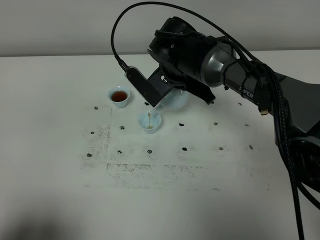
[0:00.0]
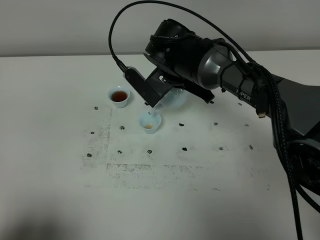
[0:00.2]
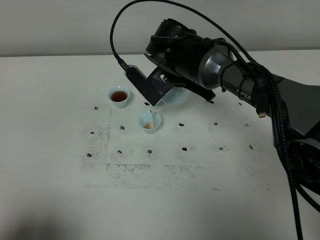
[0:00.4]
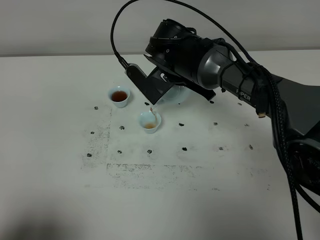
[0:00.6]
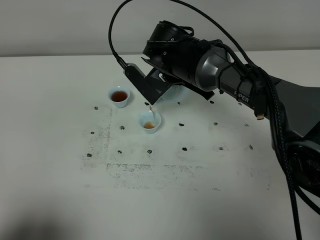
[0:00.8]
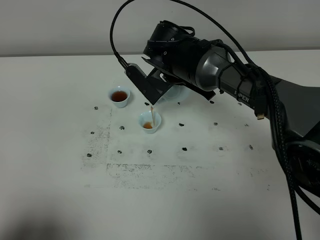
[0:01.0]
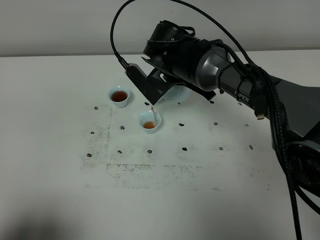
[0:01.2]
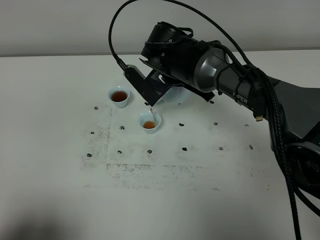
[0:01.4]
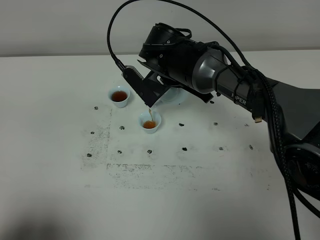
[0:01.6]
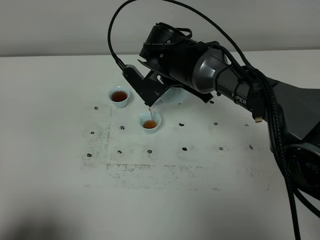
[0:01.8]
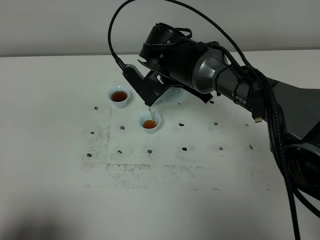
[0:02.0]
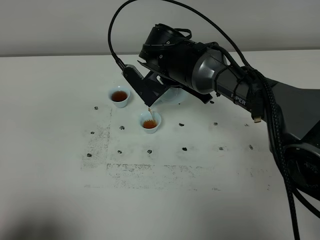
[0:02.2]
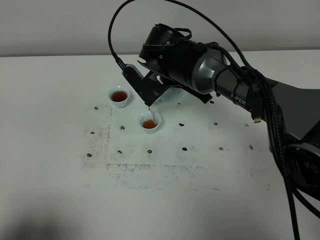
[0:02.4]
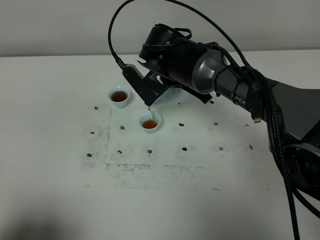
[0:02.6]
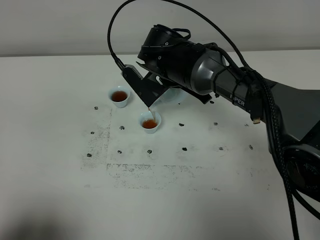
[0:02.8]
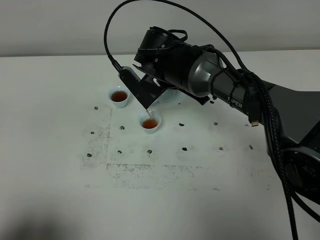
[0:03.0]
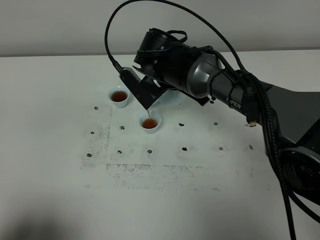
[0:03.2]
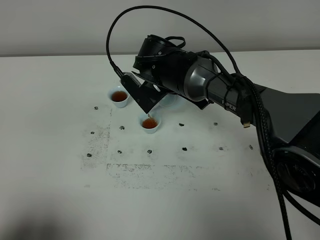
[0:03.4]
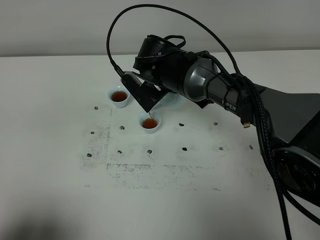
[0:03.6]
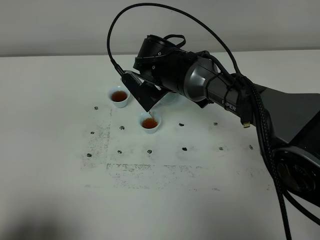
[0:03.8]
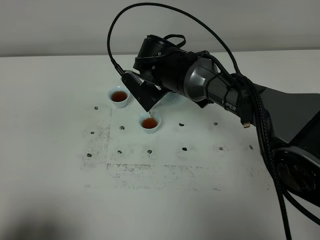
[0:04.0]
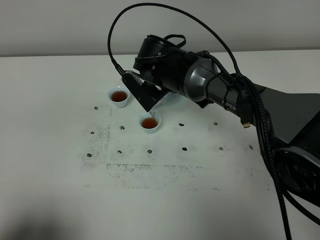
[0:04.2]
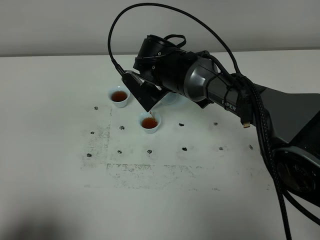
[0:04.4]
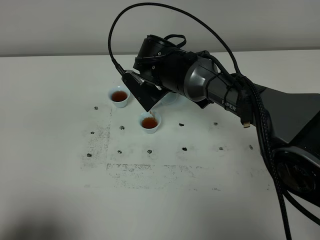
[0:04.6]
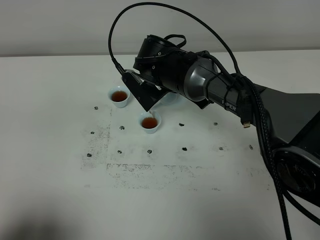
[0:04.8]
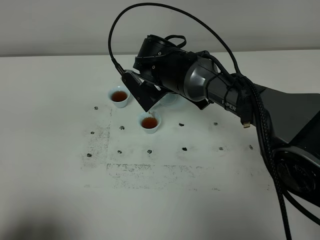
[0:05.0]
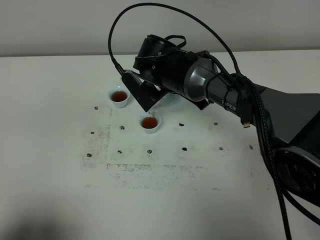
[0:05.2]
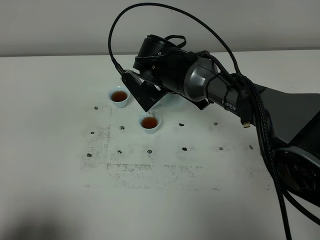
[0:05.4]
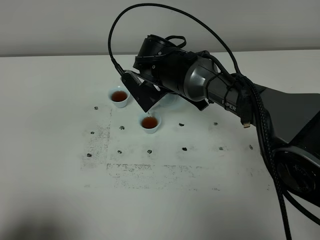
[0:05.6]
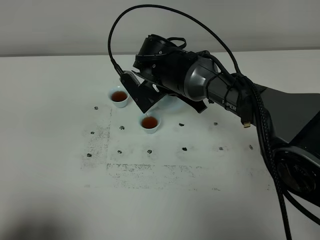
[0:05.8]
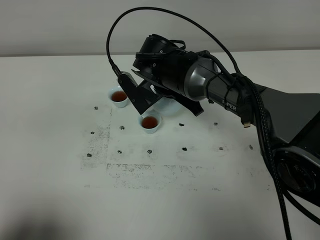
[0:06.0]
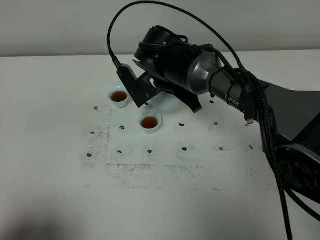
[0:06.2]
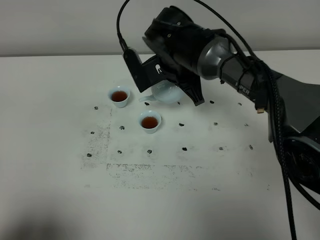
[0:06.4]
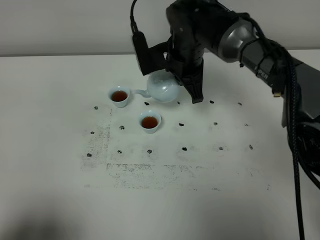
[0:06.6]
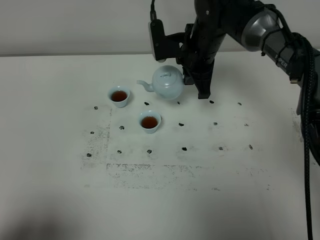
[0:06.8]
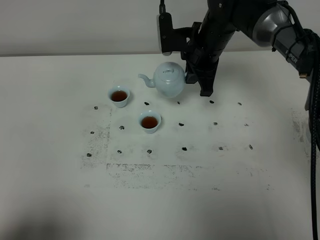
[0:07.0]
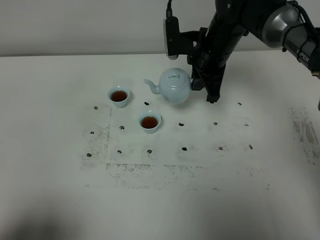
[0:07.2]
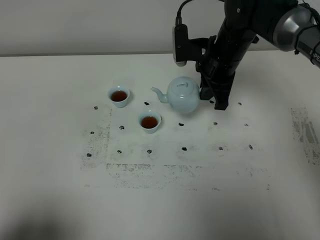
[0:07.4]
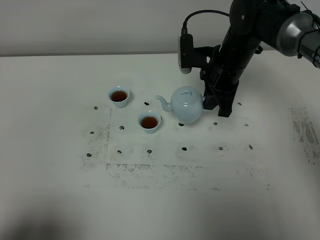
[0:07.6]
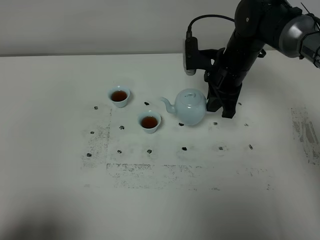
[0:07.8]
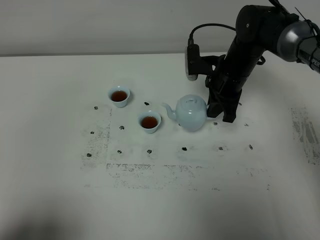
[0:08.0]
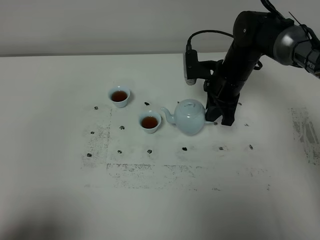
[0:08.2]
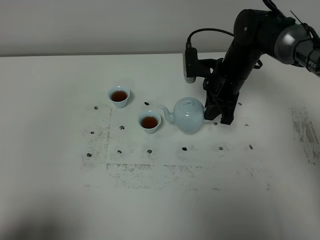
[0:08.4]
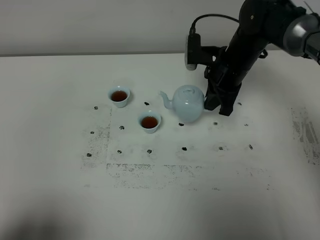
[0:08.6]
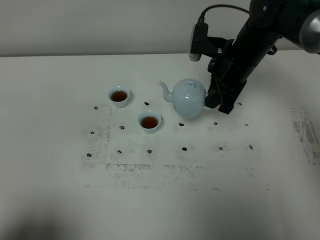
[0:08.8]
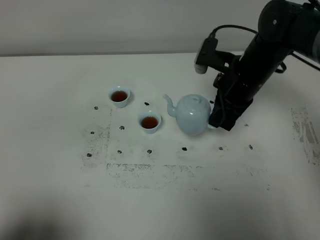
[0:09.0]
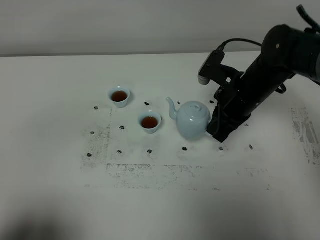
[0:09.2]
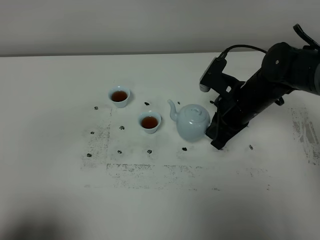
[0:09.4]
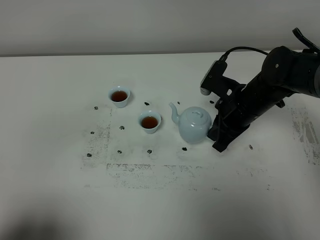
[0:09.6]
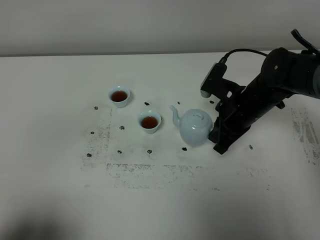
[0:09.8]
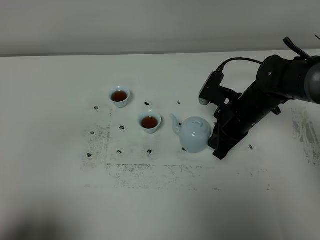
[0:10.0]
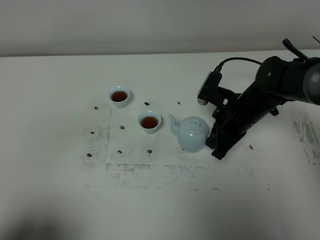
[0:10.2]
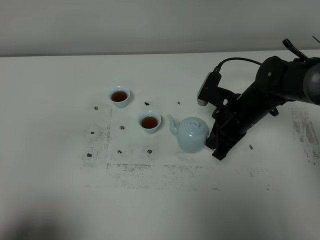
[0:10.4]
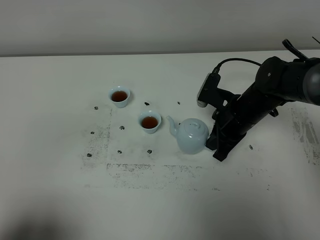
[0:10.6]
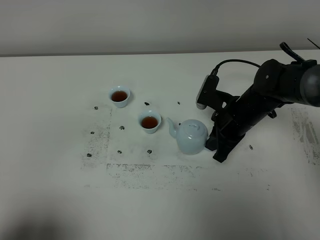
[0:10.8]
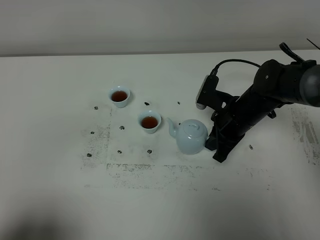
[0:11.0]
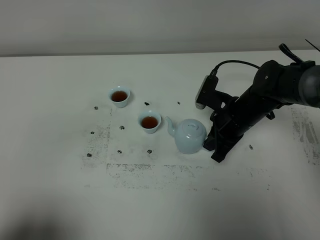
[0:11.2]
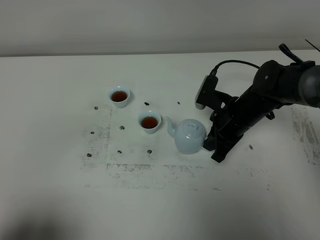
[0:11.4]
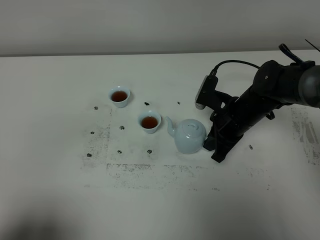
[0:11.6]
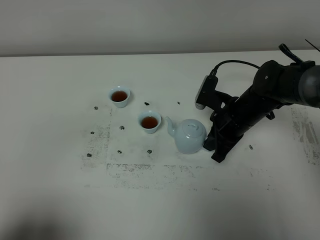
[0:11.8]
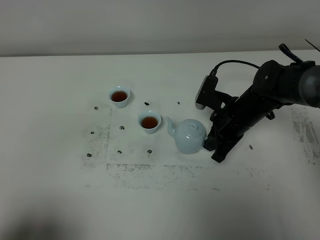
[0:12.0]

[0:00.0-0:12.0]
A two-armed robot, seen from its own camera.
Task of the whole recording: grasp the blue porcelain teapot and pour the tea into the two blue porcelain teacups one by one, put the blue porcelain teapot back in its original place.
Step, 0:00.0 to 0:06.2: Pour tea into the teacup with the right gripper.
0:00.0 to 0:01.6: The grippers stay close to where they were, moving slightly.
0:01.6 to 0:03.0: The two grippers keep their place.
0:03.0 to 0:06.0: The grippers stay close to where they were, moving slightly.
0:06.0 to 0:07.6: The right gripper heads to the right, covering about 10 cm.
0:07.6 to 0:09.0: The right gripper moves backward, about 5 cm.
0:09.0 to 0:10.4: The right gripper goes about 10 cm downward.
0:10.4 to 0:12.0: The two grippers keep their place.

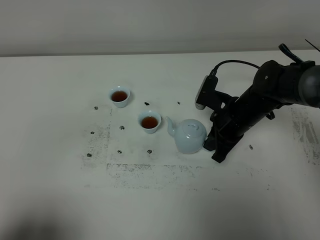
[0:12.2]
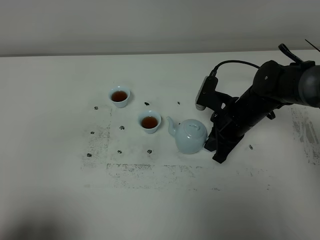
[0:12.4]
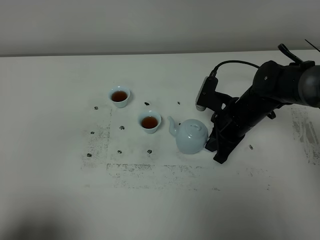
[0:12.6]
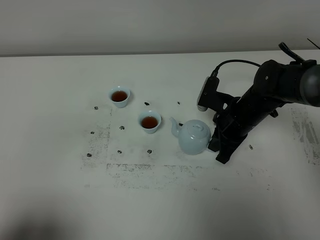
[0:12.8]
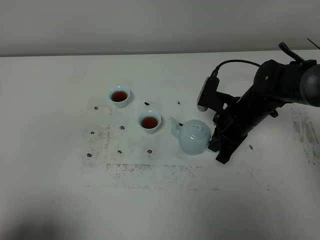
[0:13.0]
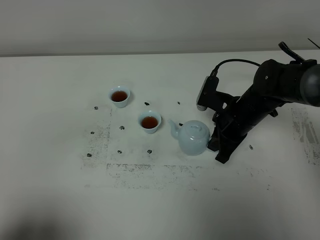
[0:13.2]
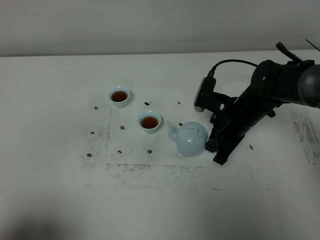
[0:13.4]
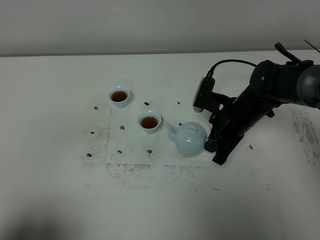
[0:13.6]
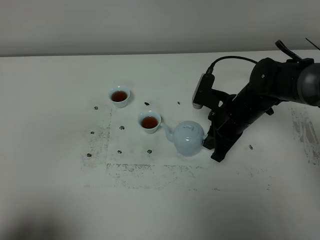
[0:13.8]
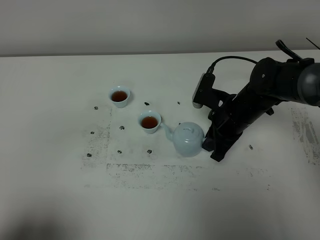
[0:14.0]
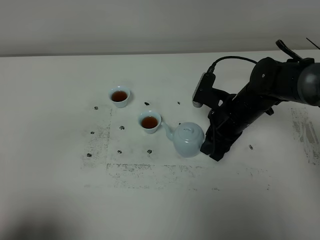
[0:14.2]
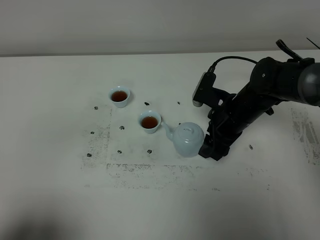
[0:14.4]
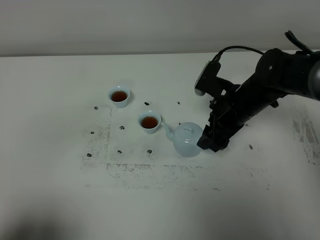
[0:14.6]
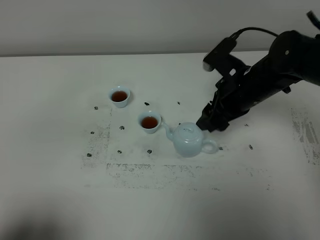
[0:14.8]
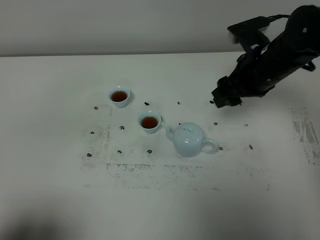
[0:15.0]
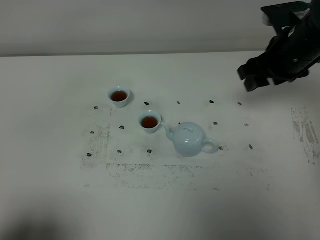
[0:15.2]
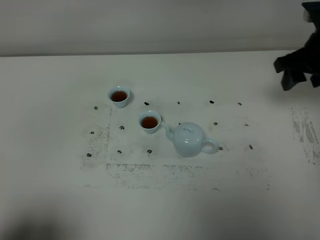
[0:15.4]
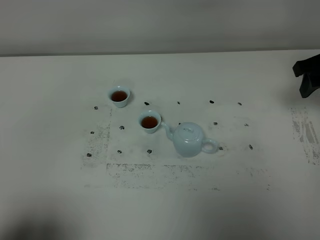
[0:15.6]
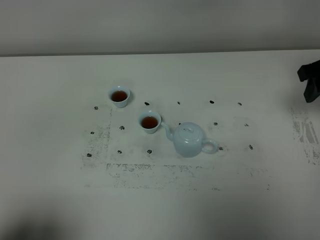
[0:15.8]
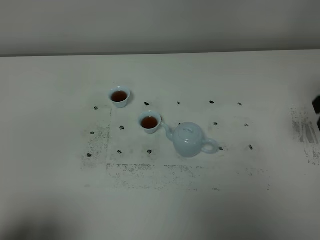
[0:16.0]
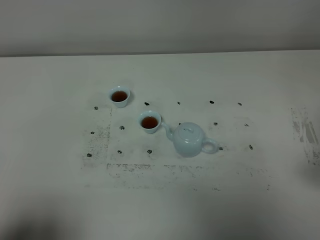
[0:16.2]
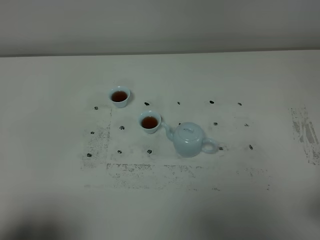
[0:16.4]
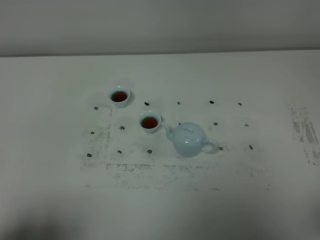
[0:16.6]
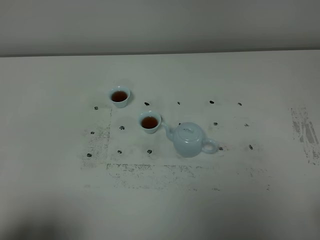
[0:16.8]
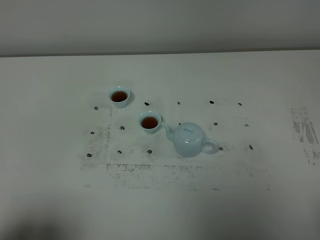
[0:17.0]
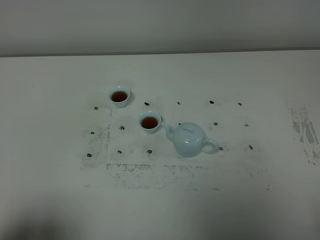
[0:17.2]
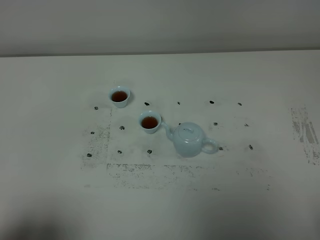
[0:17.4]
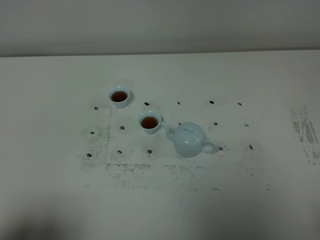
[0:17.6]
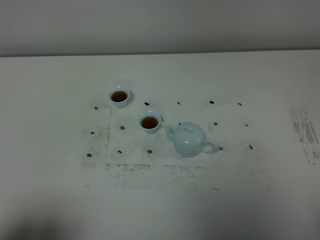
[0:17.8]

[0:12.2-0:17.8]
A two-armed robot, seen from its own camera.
Task of the whole recording: grasp the blue porcelain teapot and pour the tea into the two blue porcelain teacups one by one, put the blue porcelain teapot back in its original place.
0:12.2 to 0:13.6: Neither gripper changes place.
0:13.6 to 0:15.0: The right gripper is displaced upward by roughly 10 cm, and opens its fingers.
0:15.0 to 0:16.4: The right gripper shifts approximately 30 cm backward and to the right.

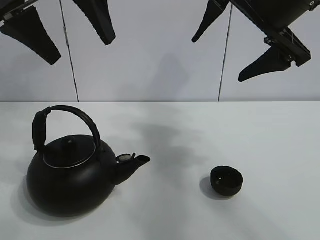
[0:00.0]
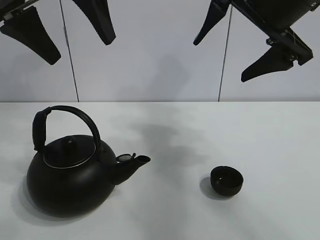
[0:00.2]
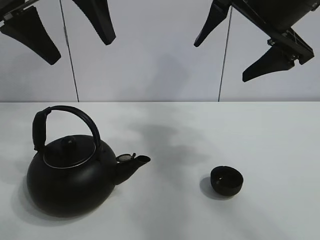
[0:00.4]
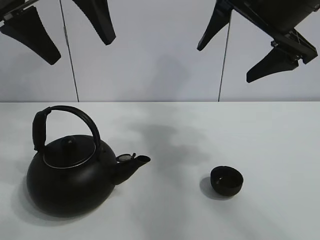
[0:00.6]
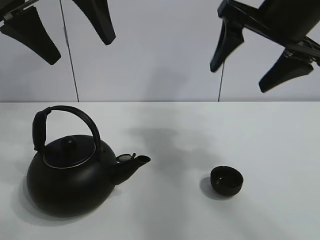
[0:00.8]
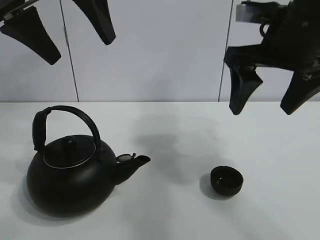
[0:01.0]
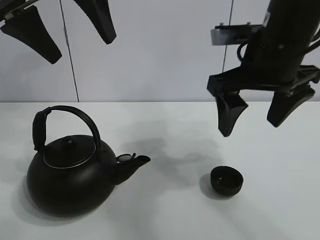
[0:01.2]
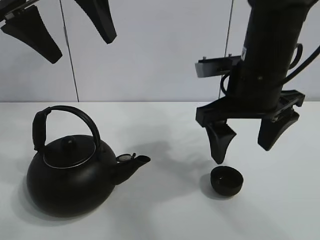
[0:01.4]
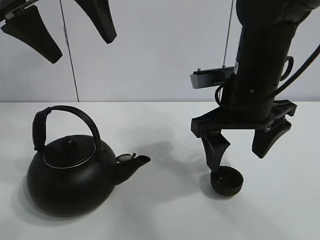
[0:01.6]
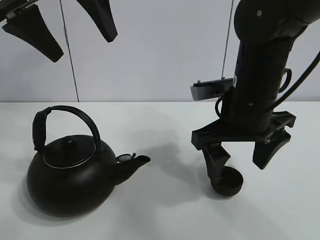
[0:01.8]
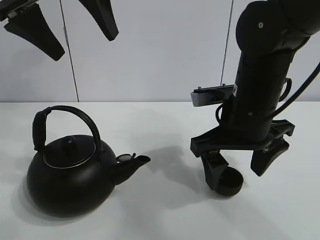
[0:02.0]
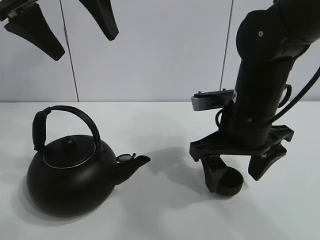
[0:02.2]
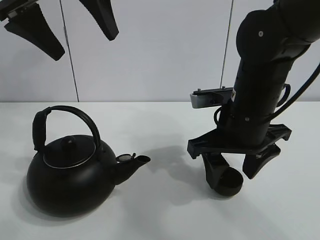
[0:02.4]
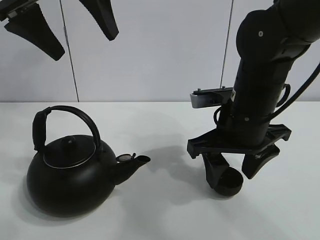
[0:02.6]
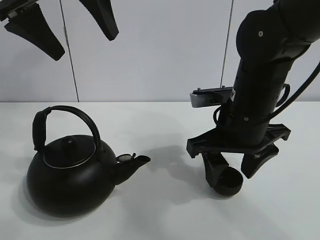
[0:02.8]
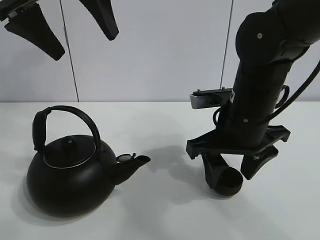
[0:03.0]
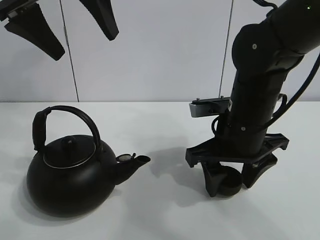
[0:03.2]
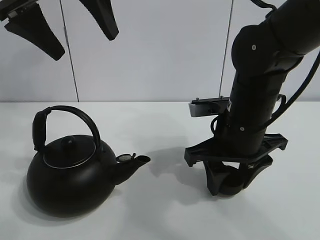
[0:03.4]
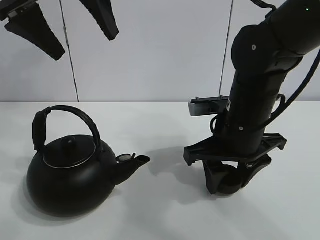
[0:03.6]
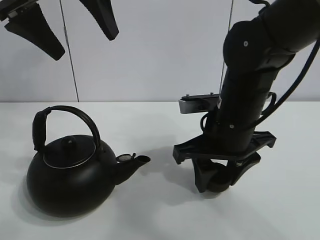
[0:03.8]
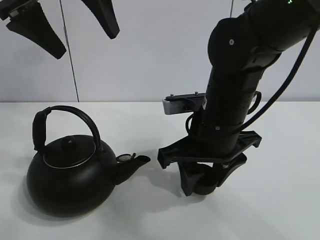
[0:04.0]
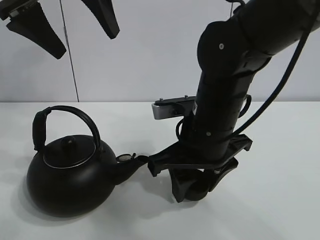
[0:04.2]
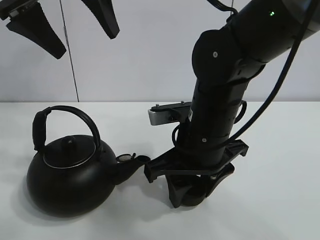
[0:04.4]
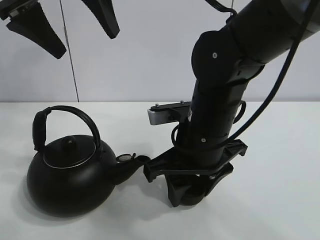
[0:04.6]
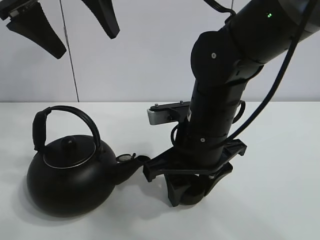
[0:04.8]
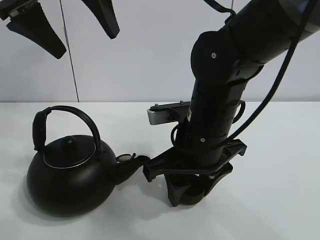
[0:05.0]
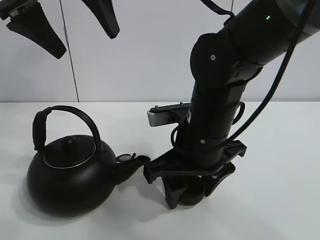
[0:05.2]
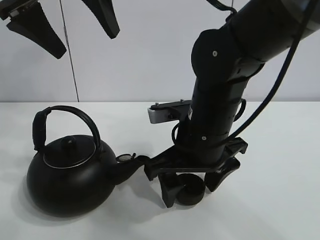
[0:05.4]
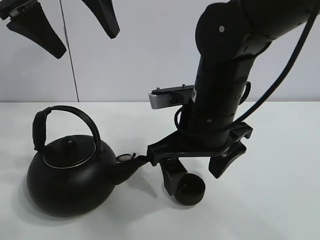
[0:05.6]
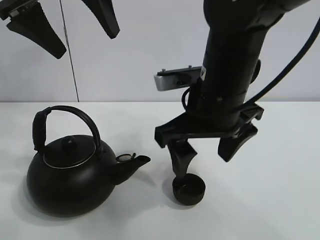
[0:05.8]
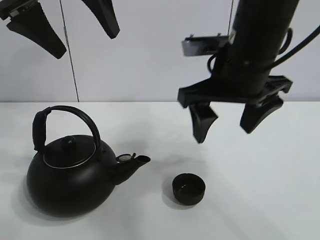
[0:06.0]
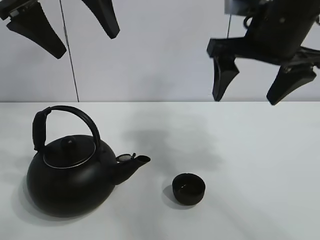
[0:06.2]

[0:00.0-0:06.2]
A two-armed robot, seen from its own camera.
Task of the whole recording: pour tea into the teacup.
Step, 0:00.0 to 0:03.2: Pick up the teacup with the right gripper.
Step, 0:03.6 to 0:05.2: Place the teacup in the center of view with the right gripper.
0:01.6 to 0:03.2: The right gripper travels downward by some 5 cm, and closes.
0:03.2 to 0:04.6: The right gripper shifts some 5 cm to the left.
0:04.6 to 0:06.2: The right gripper travels upward and to the right by roughly 15 cm, and opens its fingers.
